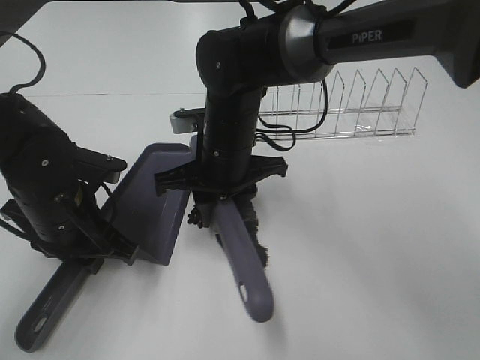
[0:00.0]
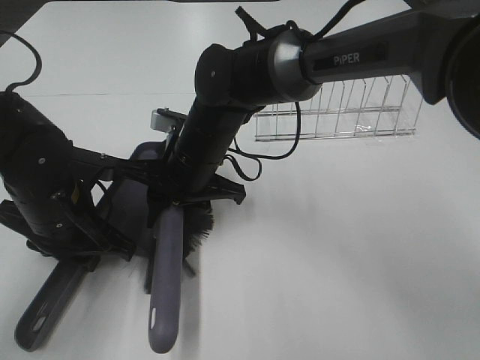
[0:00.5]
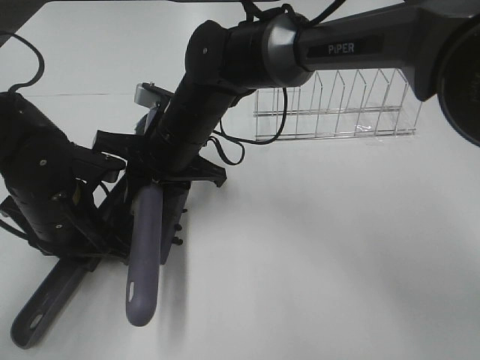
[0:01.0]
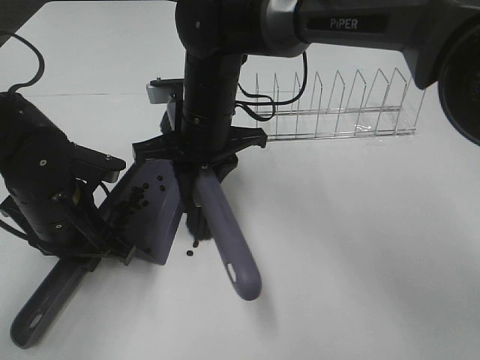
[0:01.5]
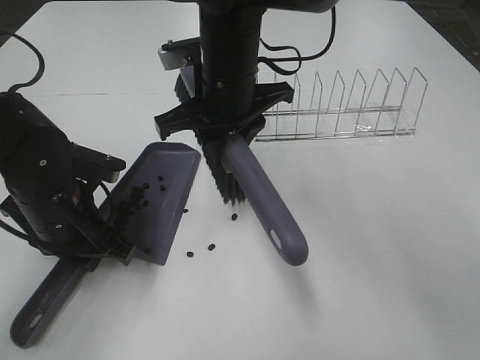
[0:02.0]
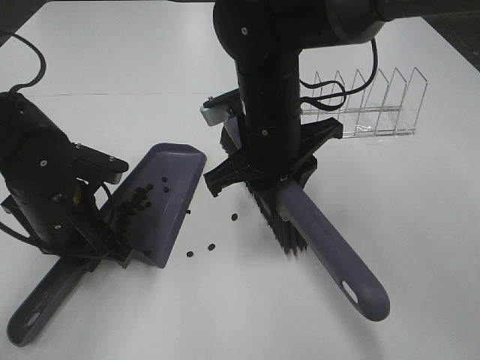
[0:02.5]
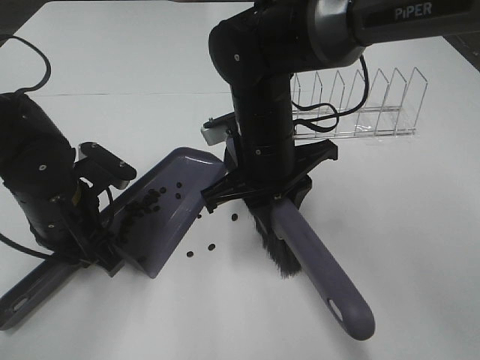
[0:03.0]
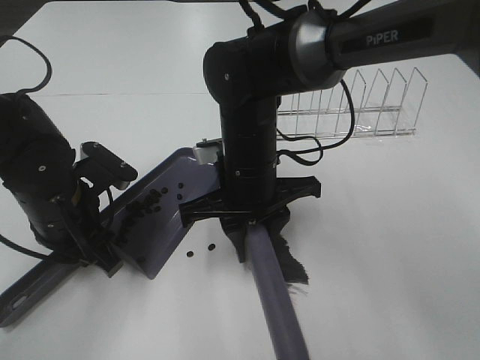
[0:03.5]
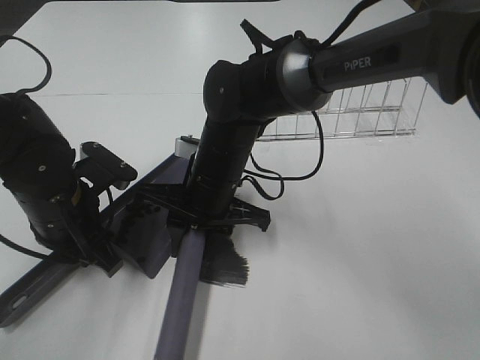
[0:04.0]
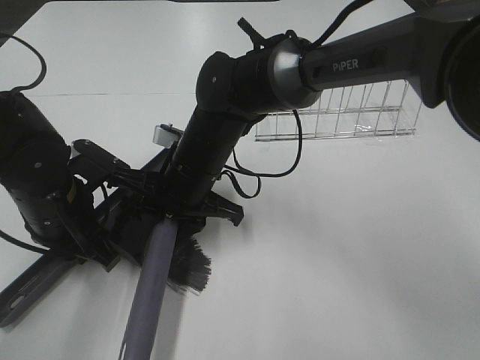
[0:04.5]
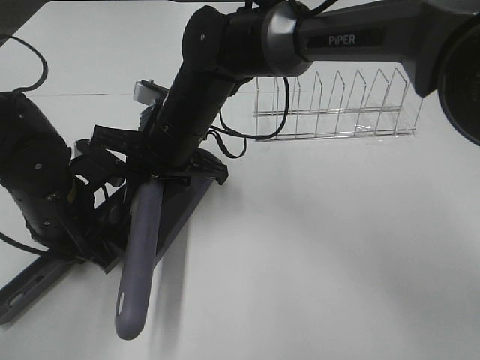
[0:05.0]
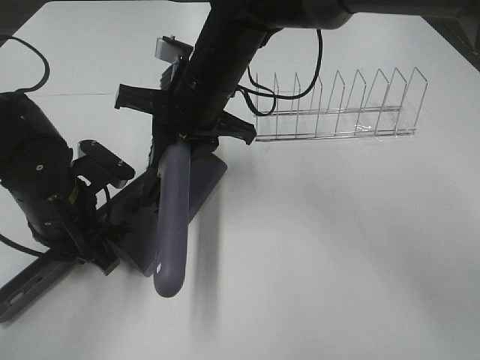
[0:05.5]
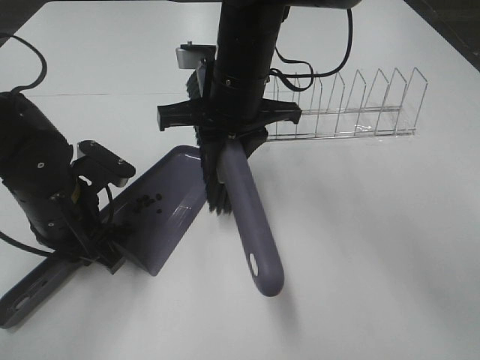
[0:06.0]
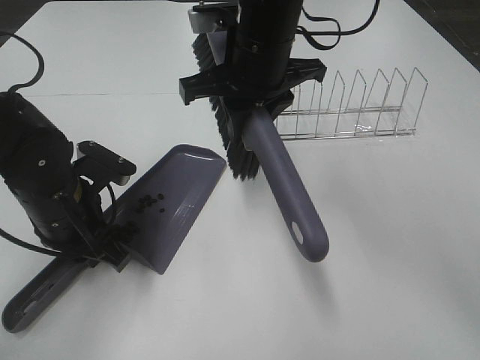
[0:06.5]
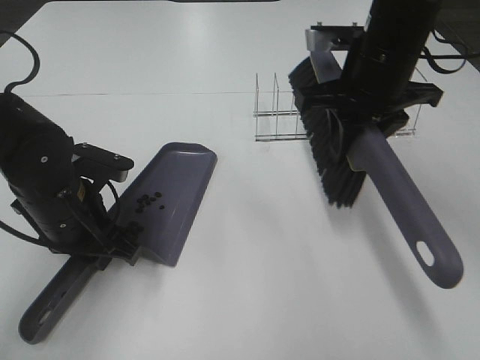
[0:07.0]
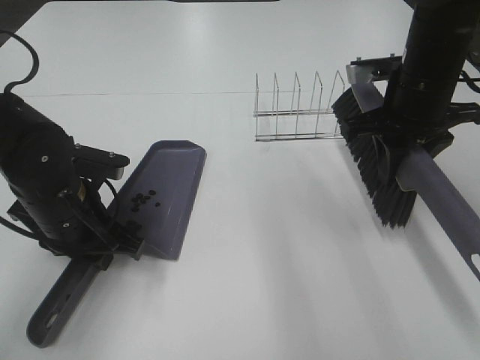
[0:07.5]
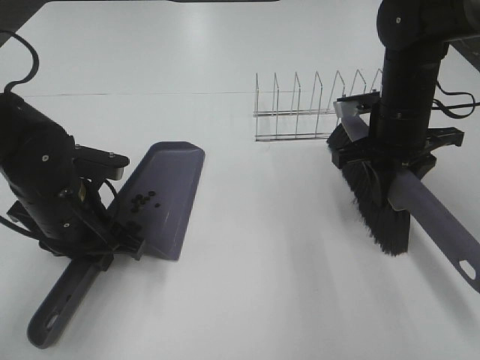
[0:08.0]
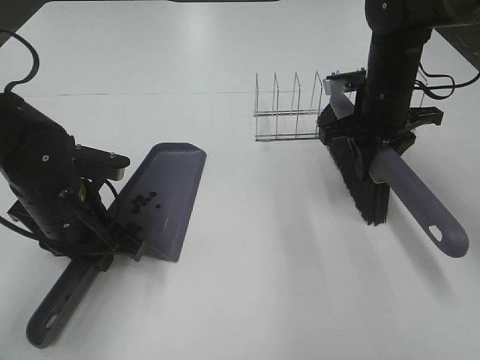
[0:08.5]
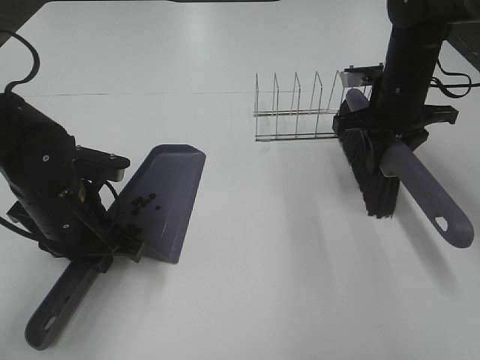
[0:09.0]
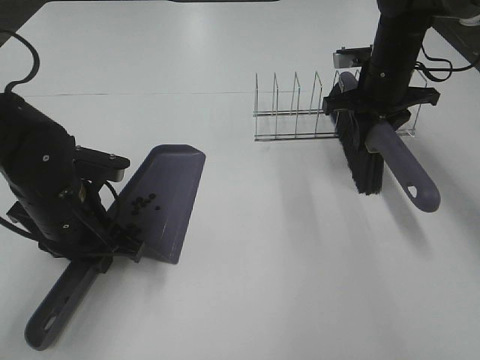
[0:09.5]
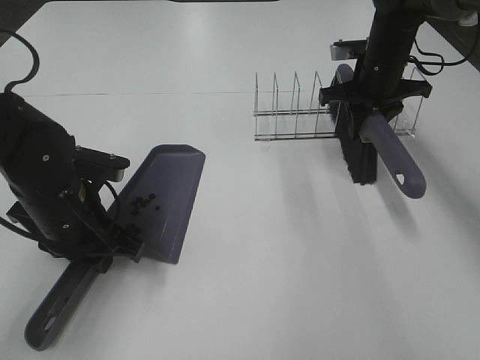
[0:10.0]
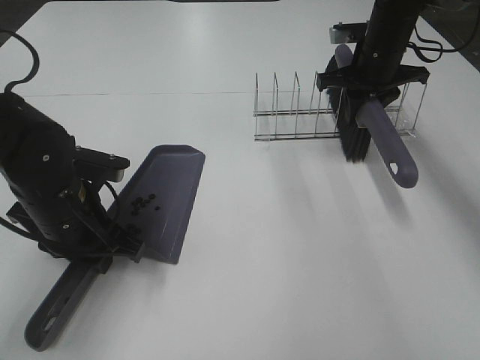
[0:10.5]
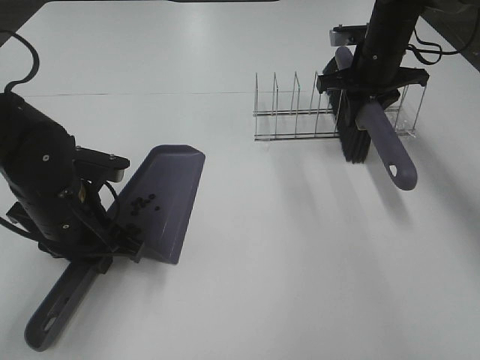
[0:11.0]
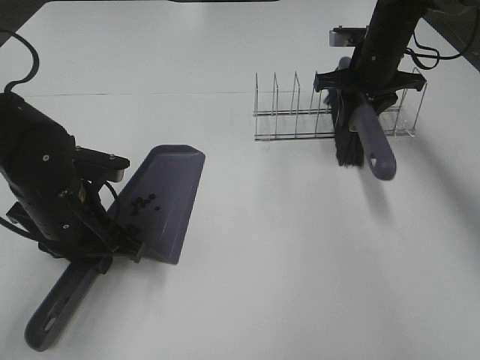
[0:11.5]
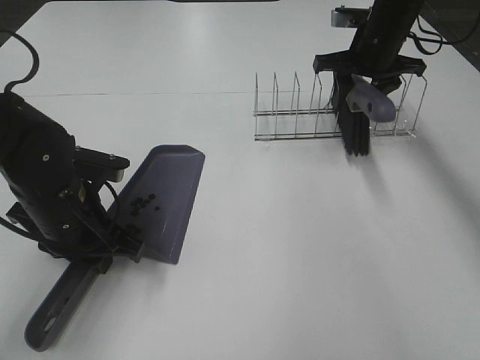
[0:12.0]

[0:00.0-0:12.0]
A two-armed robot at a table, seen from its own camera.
Task of the whole recording: Sweep Coffee Bean.
Step, 0:00.0 to 0:05.5: Right hand:sweep the coffee beans into the dustpan.
0:00.0 to 0:02.0: The right gripper shifts approximately 10 cm upward.
0:02.0 to 0:04.0: The right gripper goes about 10 cm downward.
0:04.0 to 0:06.0: The right gripper is displaced upward by roughly 10 cm.
0:06.0 to 0:08.0: The right gripper moves to the right, roughly 20 cm.
0:08.0 to 0:10.0: The right gripper goes about 10 cm forward.
0:10.0 to 0:12.0: The grippers make only small movements.

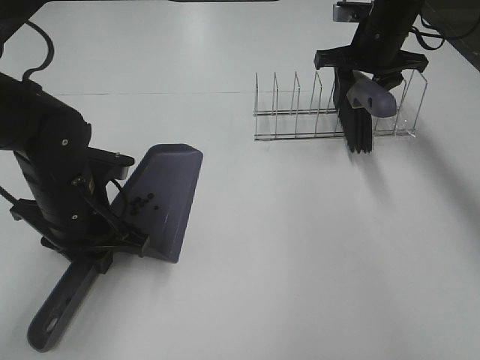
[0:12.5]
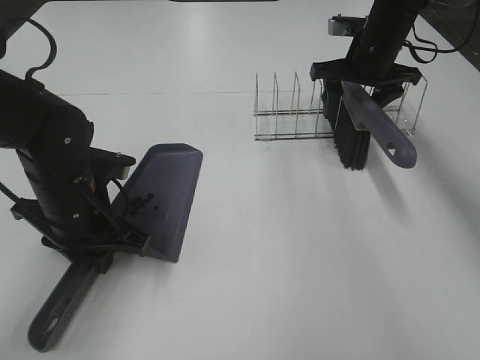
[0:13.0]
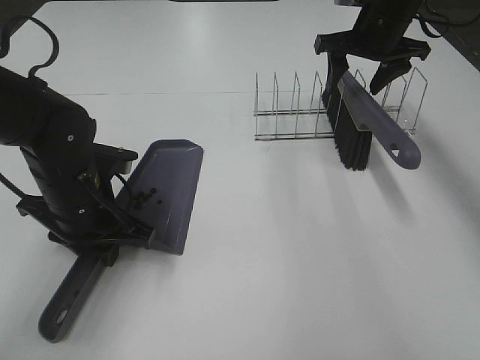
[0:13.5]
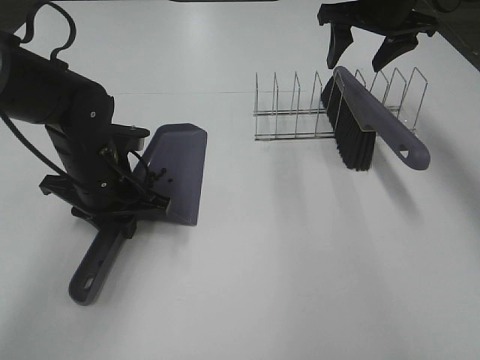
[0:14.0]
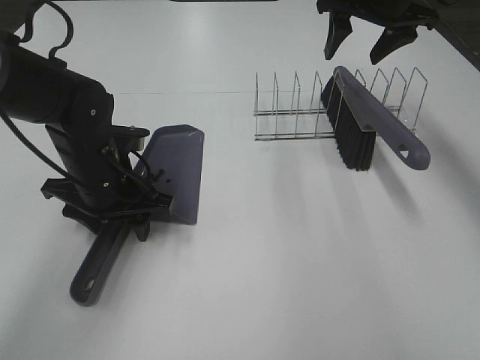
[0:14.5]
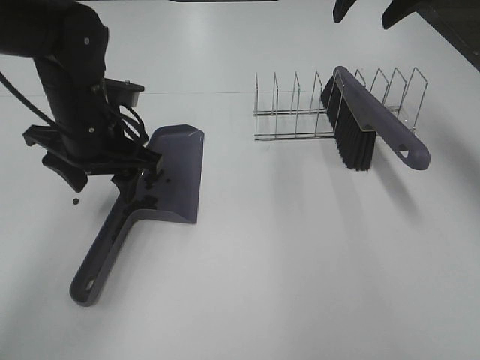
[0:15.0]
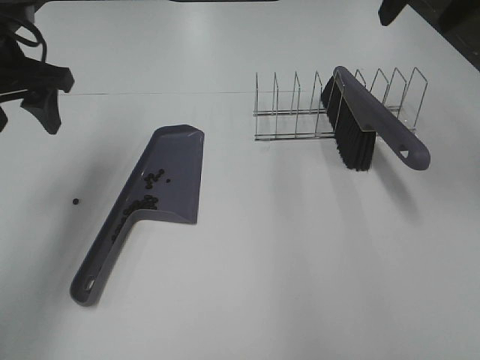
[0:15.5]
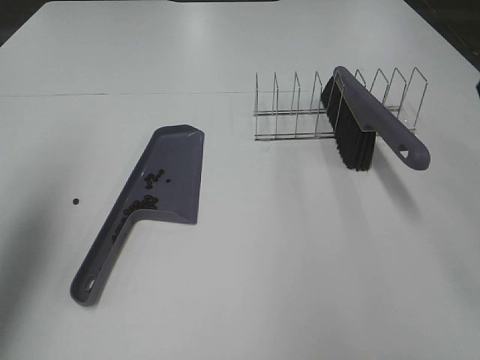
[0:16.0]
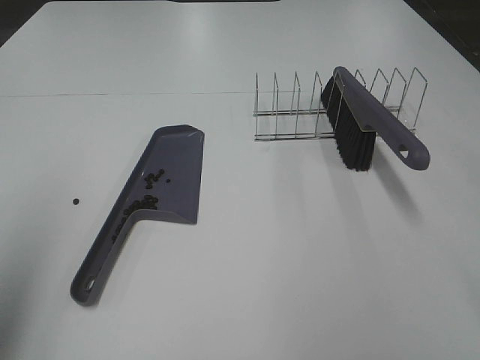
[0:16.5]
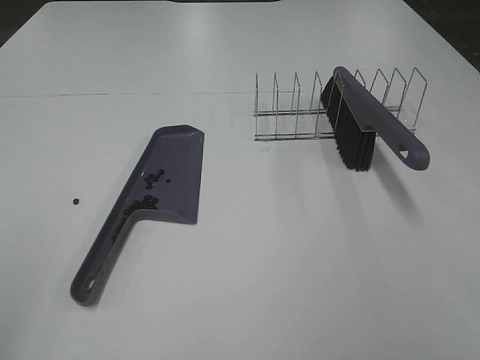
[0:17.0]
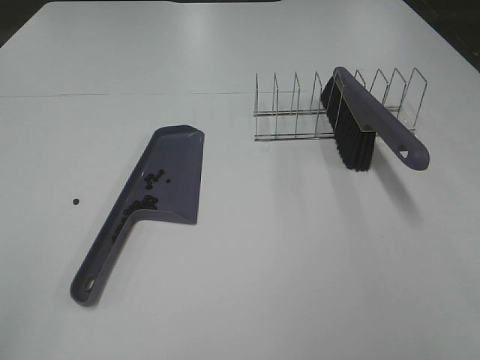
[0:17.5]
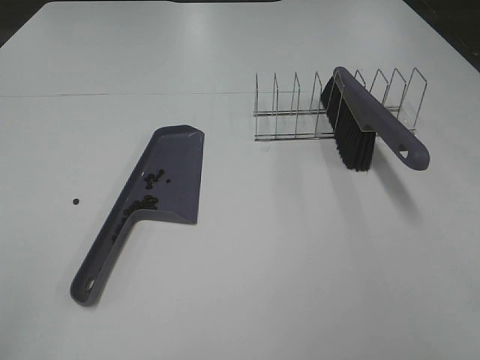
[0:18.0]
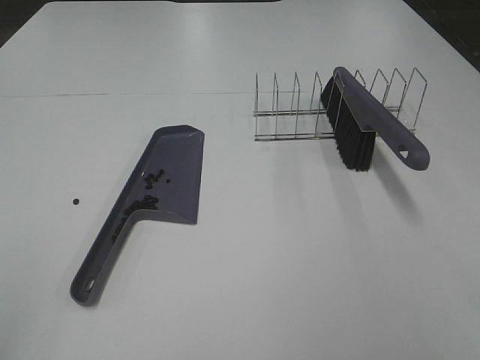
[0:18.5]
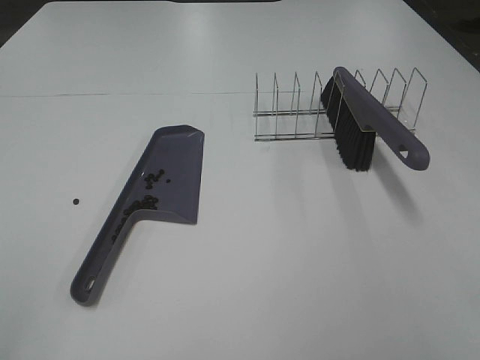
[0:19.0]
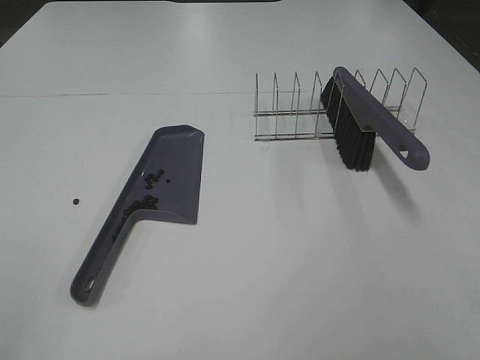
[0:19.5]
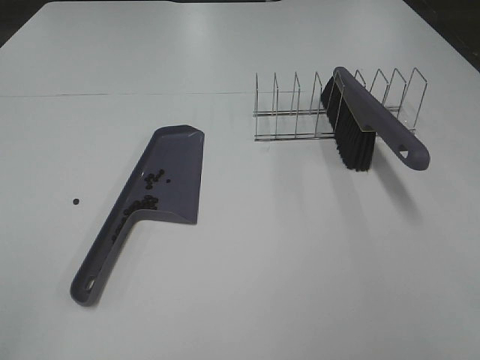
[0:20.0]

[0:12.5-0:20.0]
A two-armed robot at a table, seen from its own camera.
Task of the whole recording: Sweep Coffee Bean.
Step, 0:13.5 to 0:14.5: Left hand:place the dustpan on the table.
0:12.5 to 0:14.5: The left gripper opens, while the right gripper heads upward, covering roughly 10 cm.
0:14.5 to 0:16.5: The right gripper goes roughly 40 cm backward; the left gripper goes about 35 cm upward, backward and to the left.
0:16.5 to 0:18.0: The left gripper is displaced backward by roughly 15 cm.
0:18.0 to 0:20.0: The two grippers keep their place.

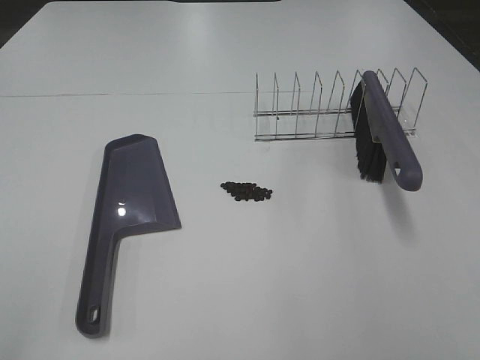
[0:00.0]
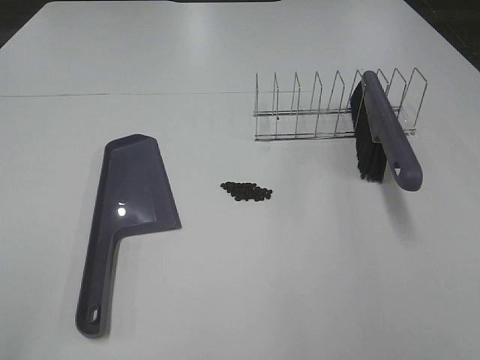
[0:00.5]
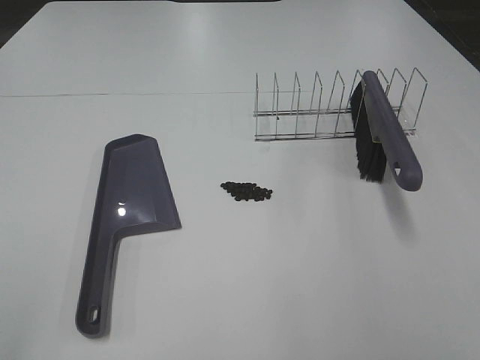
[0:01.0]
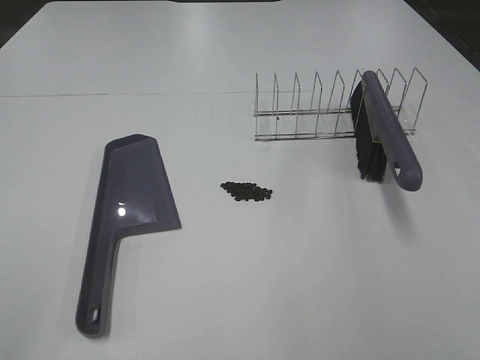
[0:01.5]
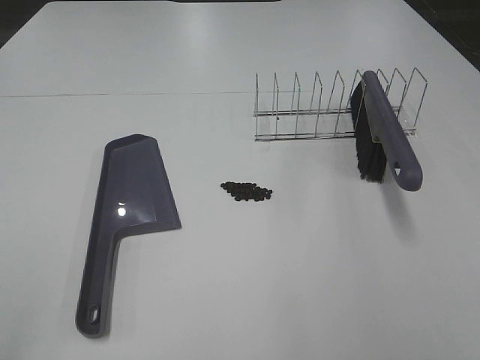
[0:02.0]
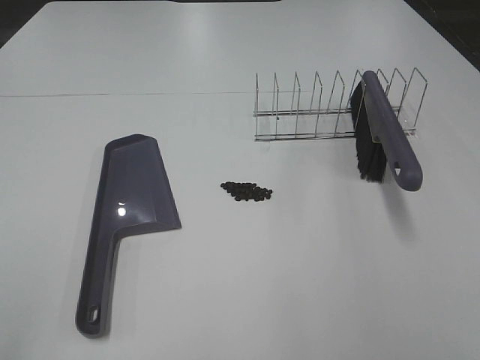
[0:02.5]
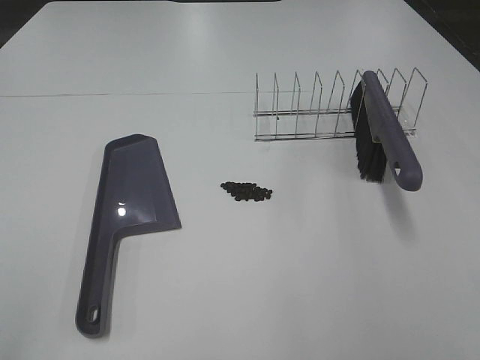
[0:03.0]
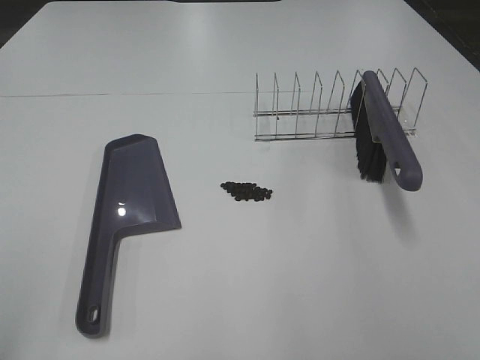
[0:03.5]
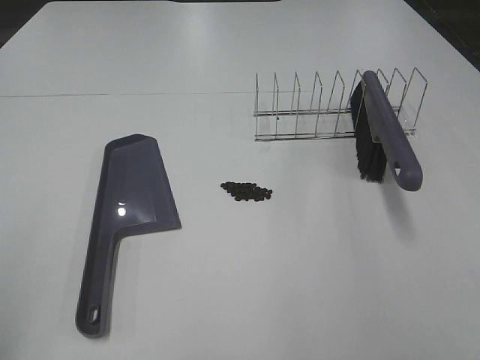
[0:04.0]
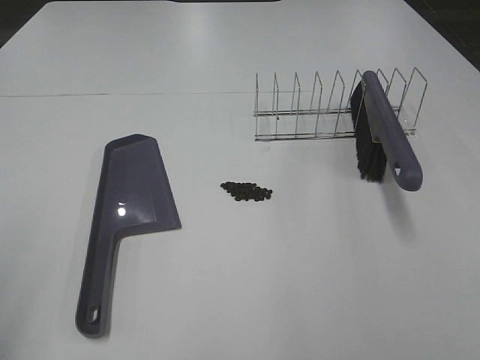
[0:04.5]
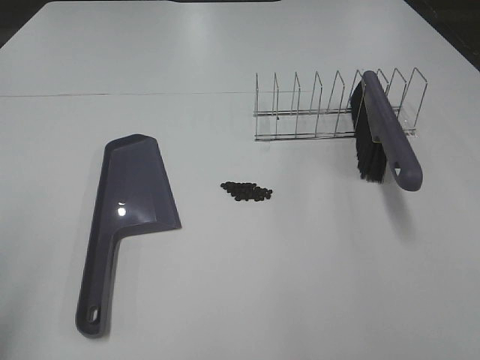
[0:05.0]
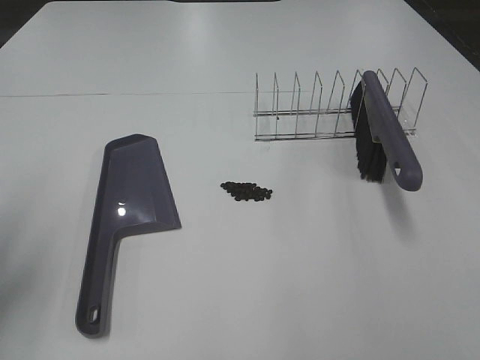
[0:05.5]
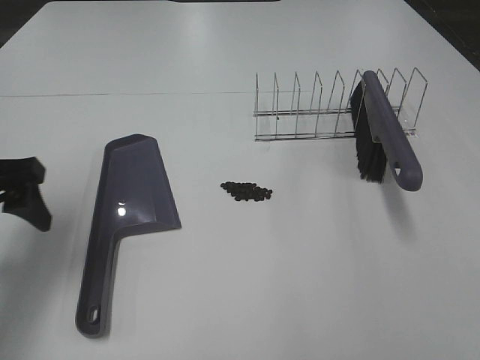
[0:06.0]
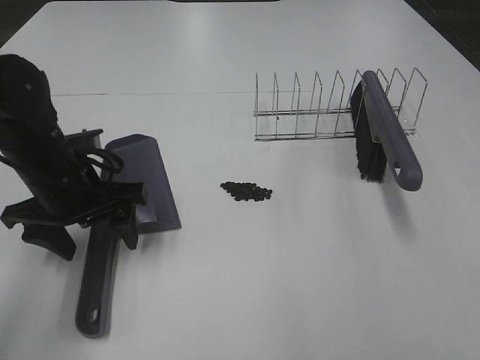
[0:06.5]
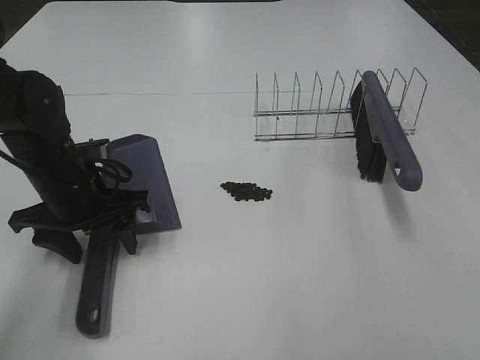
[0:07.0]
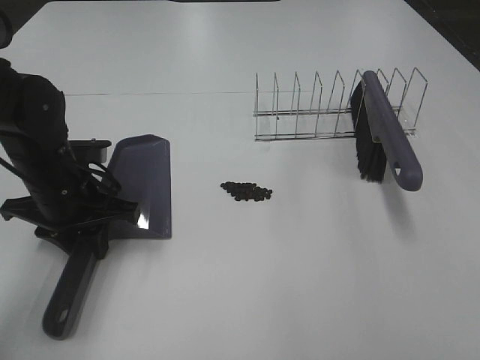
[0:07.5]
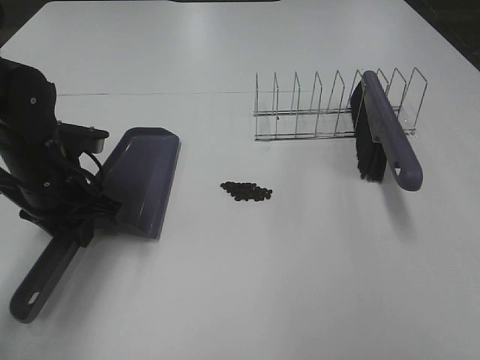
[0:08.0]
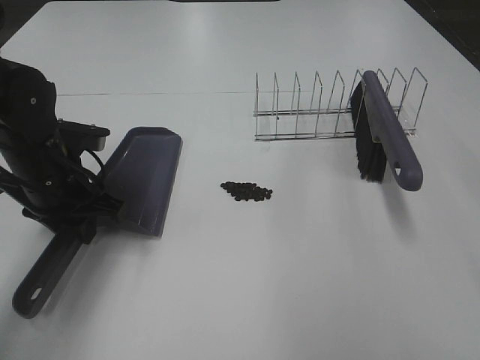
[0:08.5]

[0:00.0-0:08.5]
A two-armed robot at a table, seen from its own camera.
Task of the whole recording: Sweep Coffee Bean.
Step, 0:00.0 to 0:07.0: Left hand: grab the dustpan.
0:00.0 to 0:02.0: The two grippers keep their place.
0:04.0 to 0:06.5: The left gripper shifts approximately 30 cm forward, downward and to the right.
0:06.5 to 0:08.5: The right gripper moves forward and upward, approximately 15 cm. Meanwhile the left gripper closes up.
